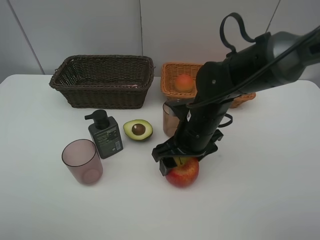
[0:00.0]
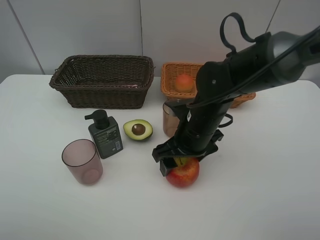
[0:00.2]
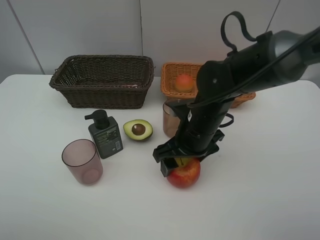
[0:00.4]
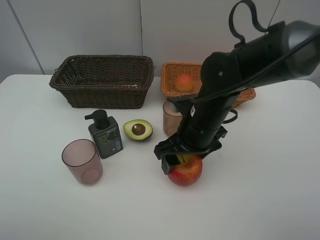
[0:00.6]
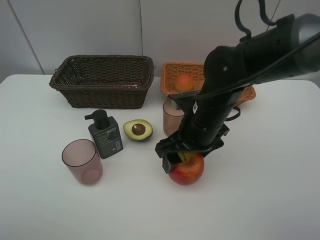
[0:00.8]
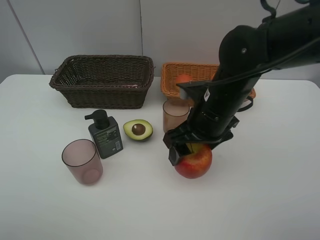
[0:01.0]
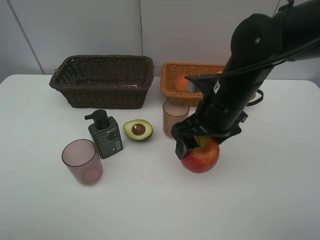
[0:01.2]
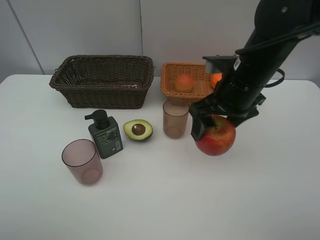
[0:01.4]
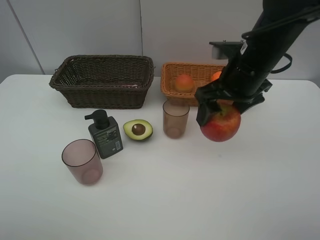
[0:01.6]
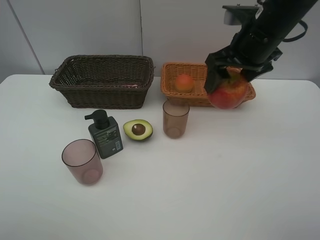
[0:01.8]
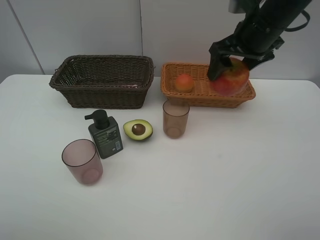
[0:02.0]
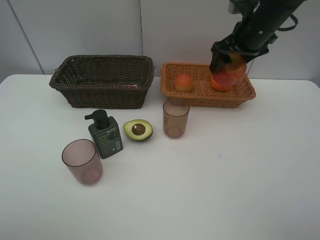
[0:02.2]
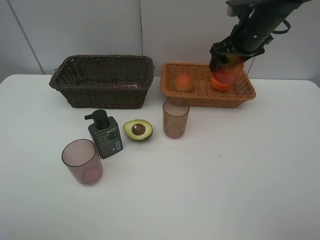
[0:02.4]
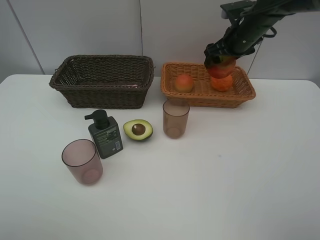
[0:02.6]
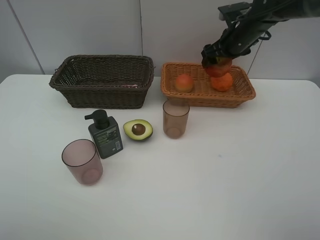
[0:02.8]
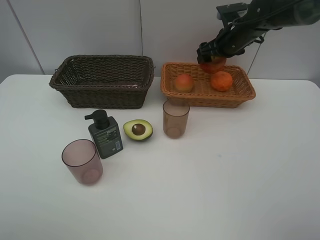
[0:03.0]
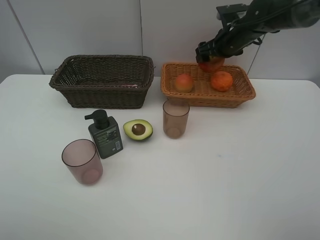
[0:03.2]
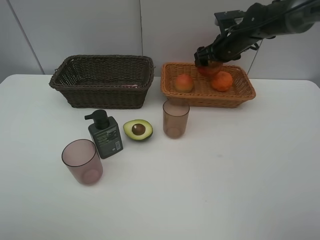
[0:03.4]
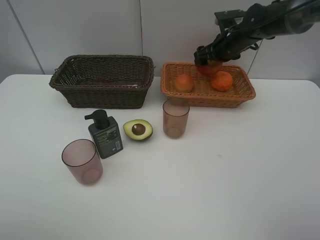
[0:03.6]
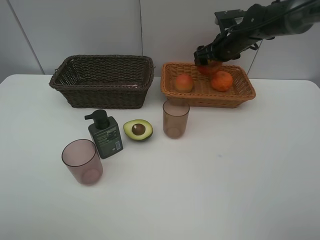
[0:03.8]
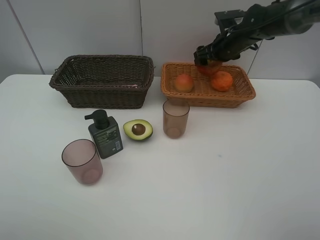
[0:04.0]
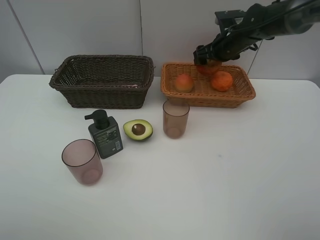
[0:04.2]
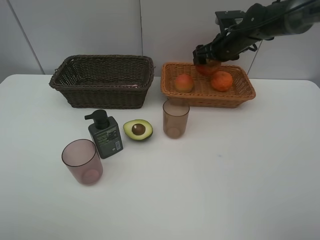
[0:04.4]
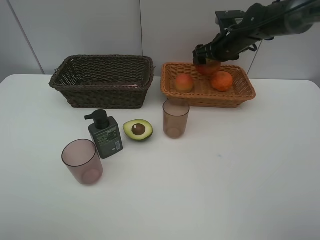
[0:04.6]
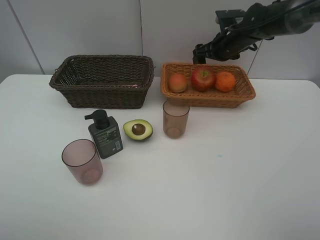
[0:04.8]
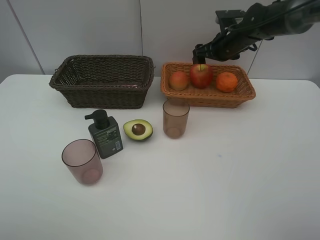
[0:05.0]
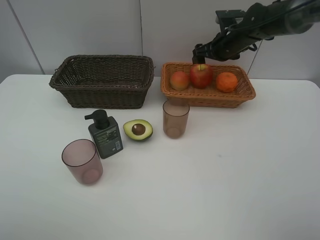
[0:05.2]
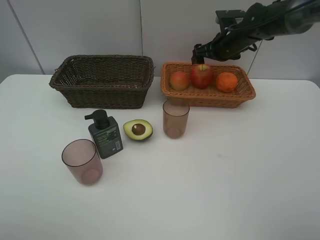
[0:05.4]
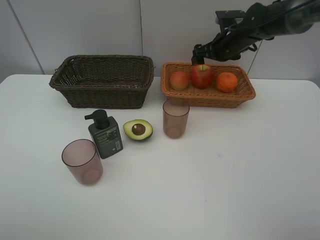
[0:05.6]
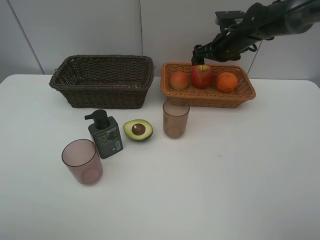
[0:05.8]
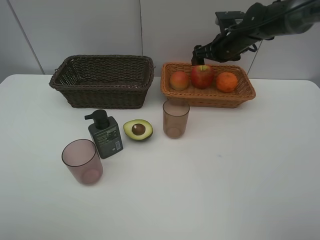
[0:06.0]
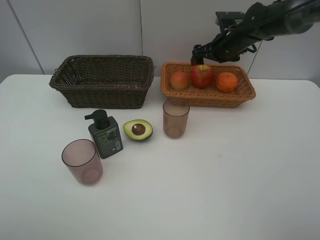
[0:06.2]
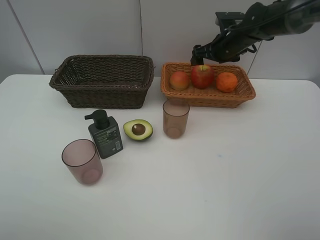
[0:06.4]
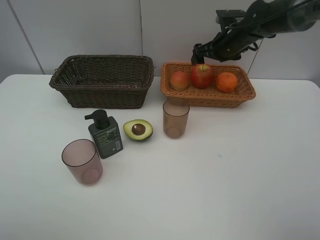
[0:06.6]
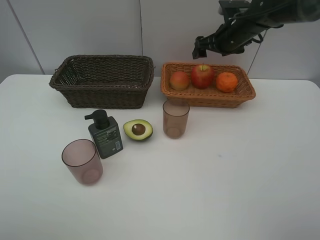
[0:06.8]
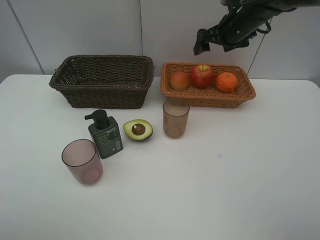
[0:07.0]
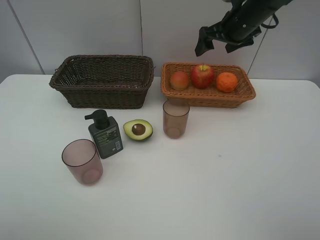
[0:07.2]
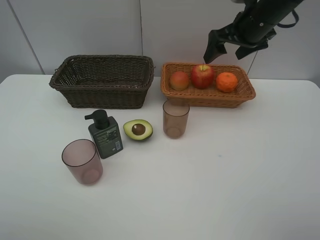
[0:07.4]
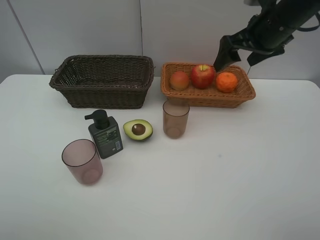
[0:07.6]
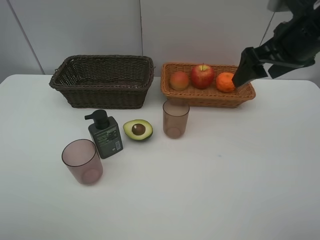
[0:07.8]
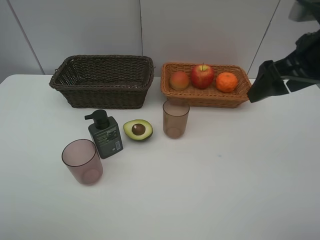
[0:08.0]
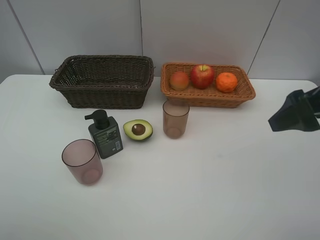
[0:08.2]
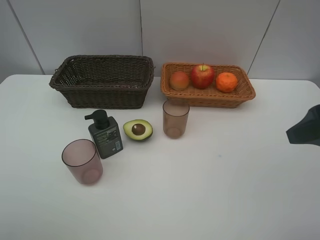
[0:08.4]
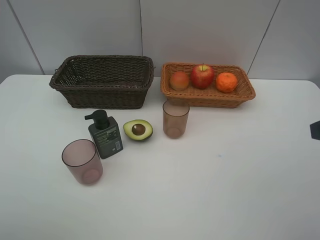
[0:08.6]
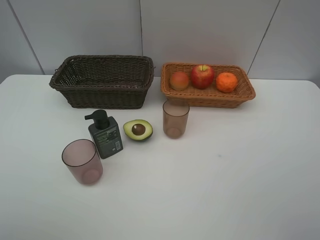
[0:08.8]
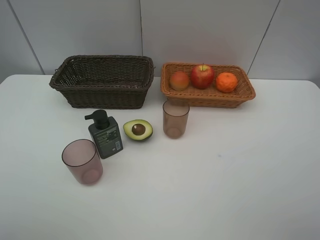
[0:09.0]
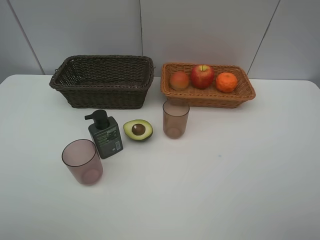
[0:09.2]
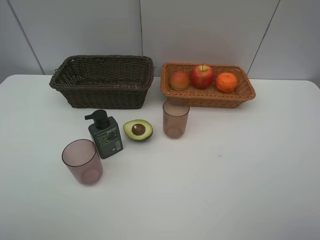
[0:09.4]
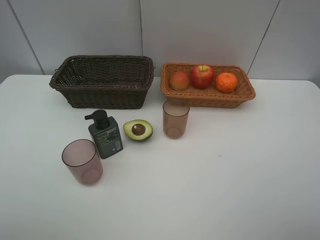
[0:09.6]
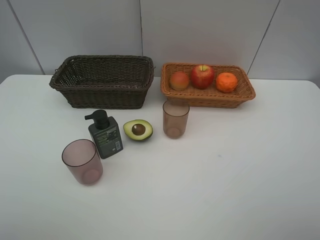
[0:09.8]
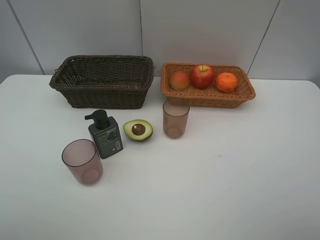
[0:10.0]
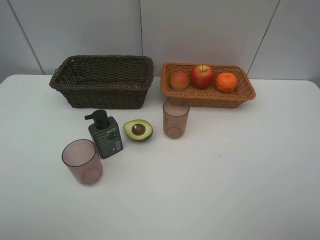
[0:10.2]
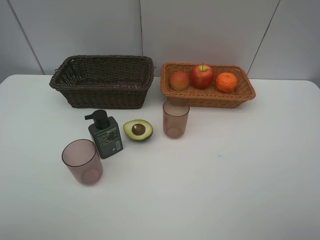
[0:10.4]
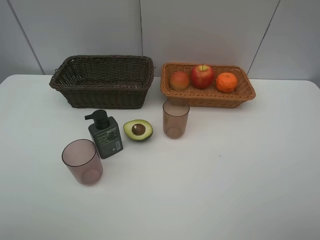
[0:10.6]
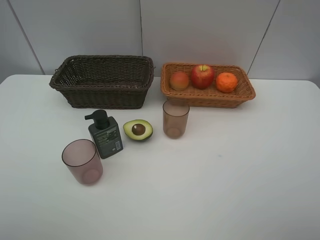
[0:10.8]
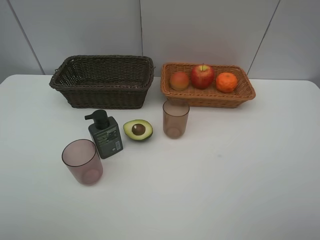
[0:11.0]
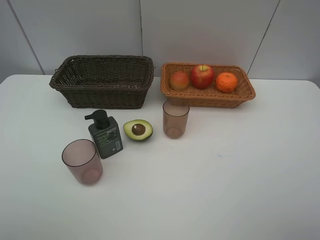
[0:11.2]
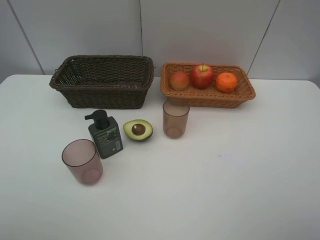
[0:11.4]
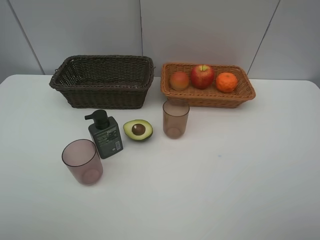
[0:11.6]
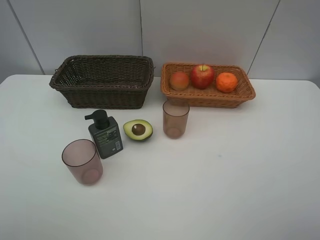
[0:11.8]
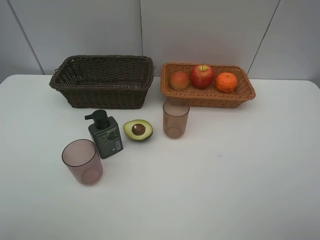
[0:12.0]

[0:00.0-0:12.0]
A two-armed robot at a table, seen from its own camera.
Task of the whole recording: Place multiple objects separately in different baskets.
Step, 0:01.2 to 0:05.0: Place the apple in the light basket with right gripper.
0:00.0 to 0:01.6: The right gripper travels upward and to the right by roughly 15 cm.
0:01.6 to 0:03.0: The right gripper heads forward, covering roughly 20 cm.
0:03.0 to 0:04.4: There are only small adjustments of the grippers.
0:04.4 to 0:06.0: Both grippers stay about where they are.
0:06.0 to 0:07.6: The right gripper travels backward and upward by some 20 cm.
0:07.6 to 0:09.0: The right gripper heads backward, covering roughly 30 cm.
0:10.4 to 0:12.0: Both grippers stay about where they are.

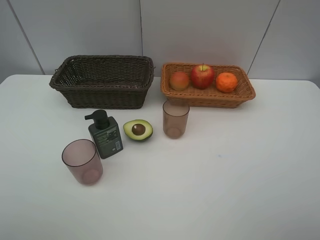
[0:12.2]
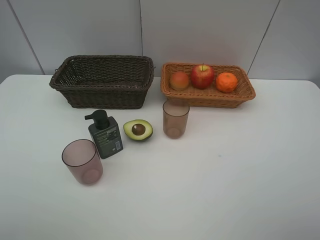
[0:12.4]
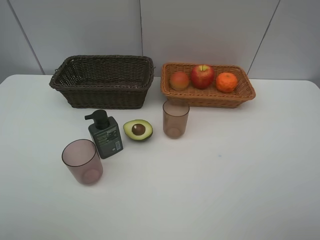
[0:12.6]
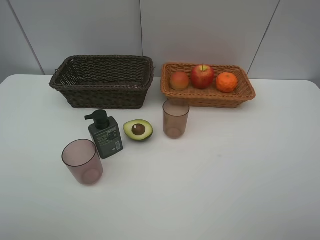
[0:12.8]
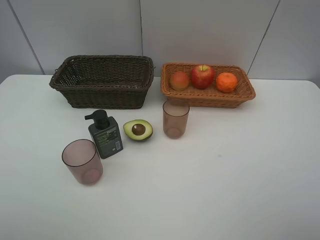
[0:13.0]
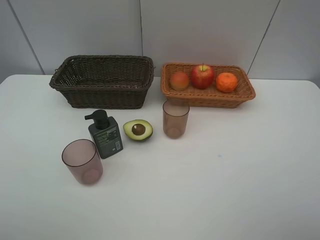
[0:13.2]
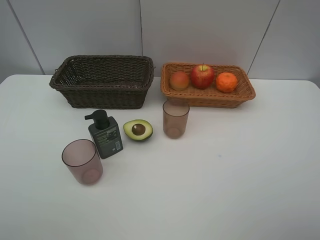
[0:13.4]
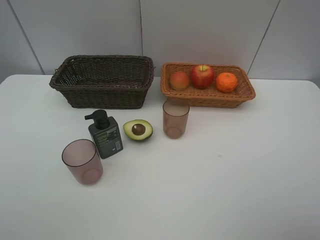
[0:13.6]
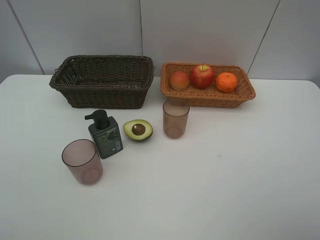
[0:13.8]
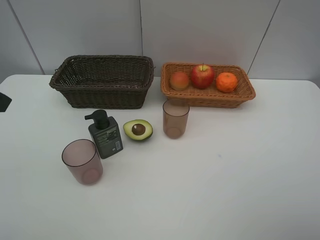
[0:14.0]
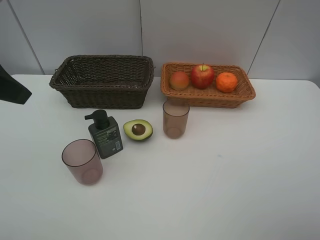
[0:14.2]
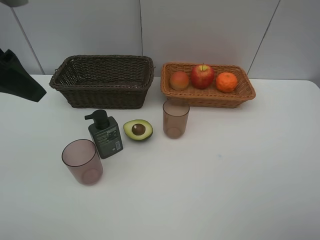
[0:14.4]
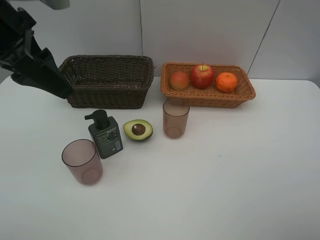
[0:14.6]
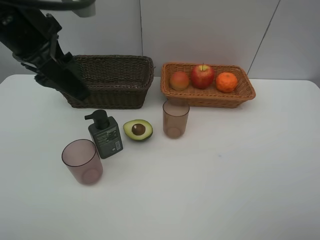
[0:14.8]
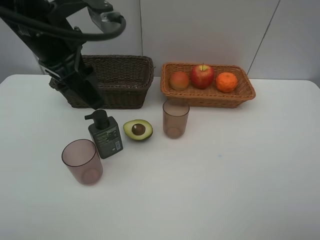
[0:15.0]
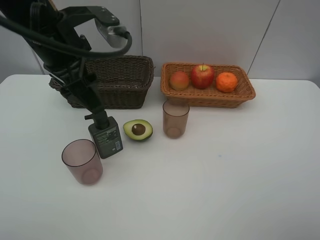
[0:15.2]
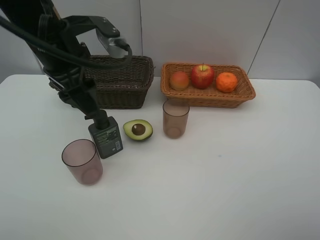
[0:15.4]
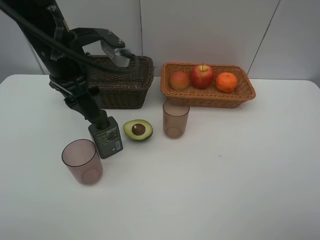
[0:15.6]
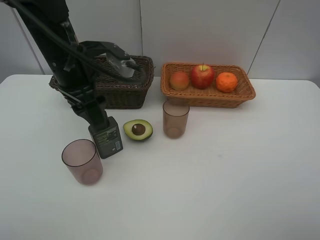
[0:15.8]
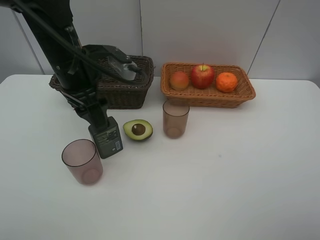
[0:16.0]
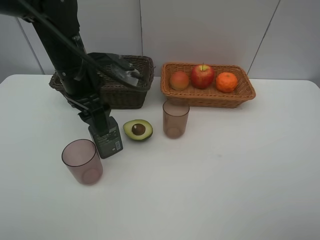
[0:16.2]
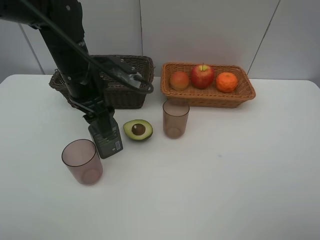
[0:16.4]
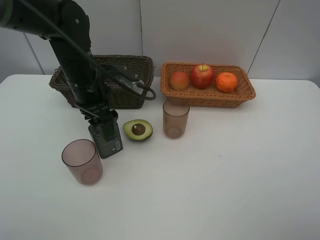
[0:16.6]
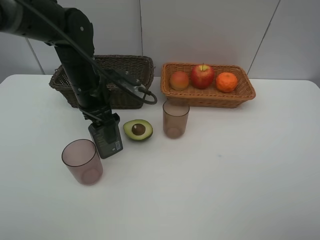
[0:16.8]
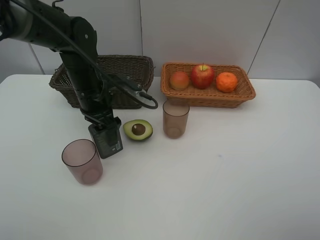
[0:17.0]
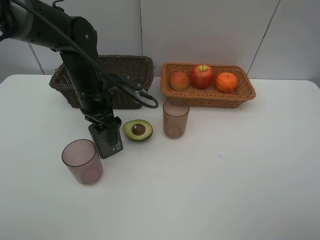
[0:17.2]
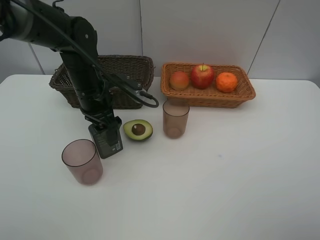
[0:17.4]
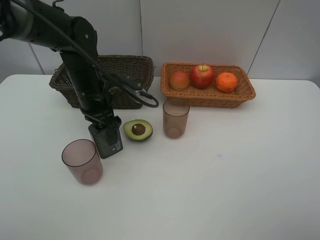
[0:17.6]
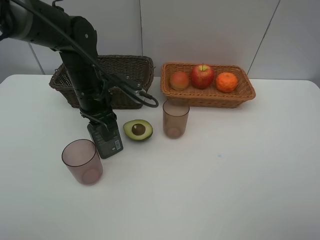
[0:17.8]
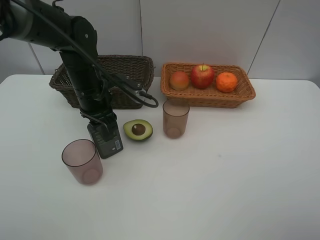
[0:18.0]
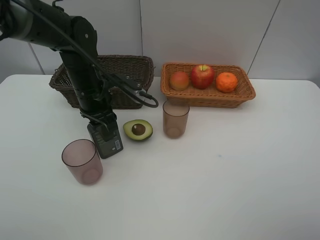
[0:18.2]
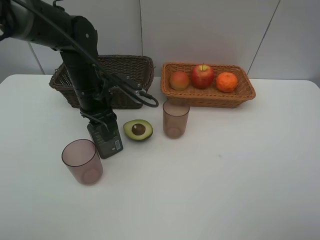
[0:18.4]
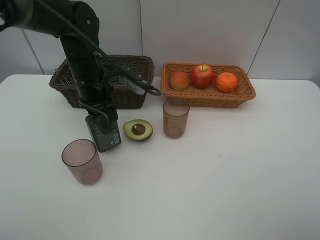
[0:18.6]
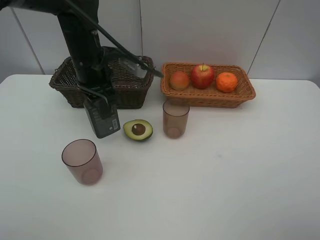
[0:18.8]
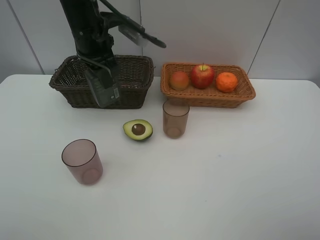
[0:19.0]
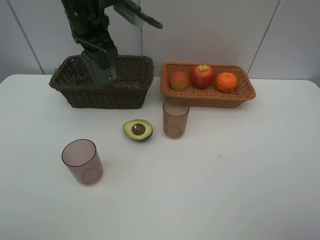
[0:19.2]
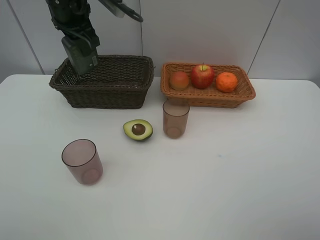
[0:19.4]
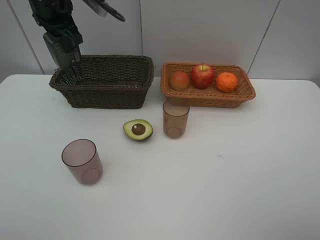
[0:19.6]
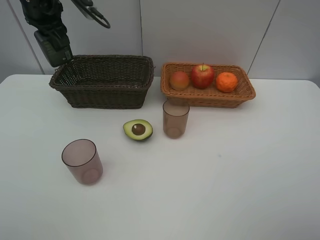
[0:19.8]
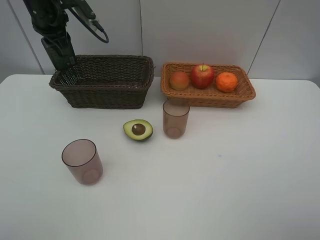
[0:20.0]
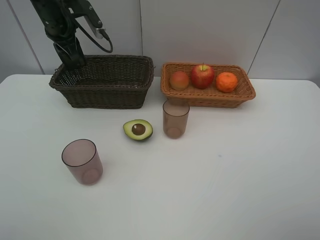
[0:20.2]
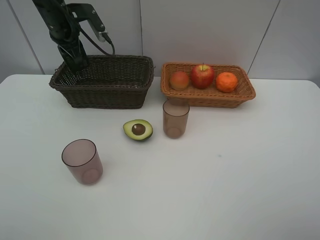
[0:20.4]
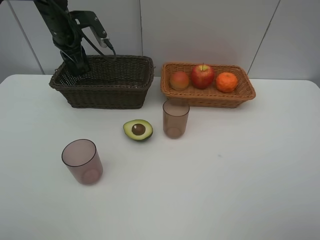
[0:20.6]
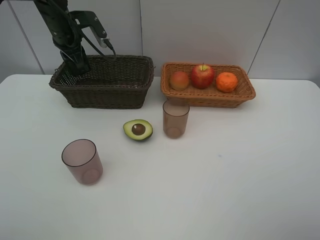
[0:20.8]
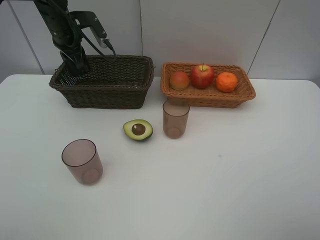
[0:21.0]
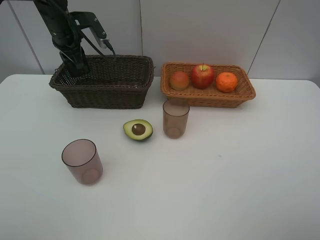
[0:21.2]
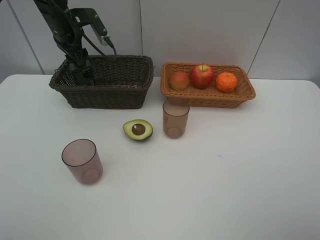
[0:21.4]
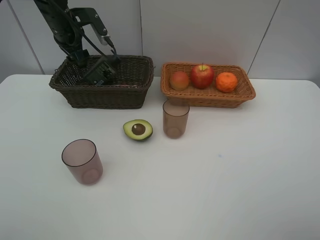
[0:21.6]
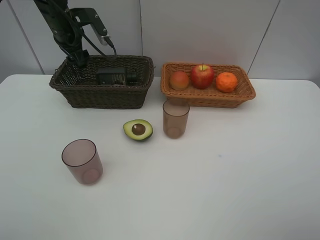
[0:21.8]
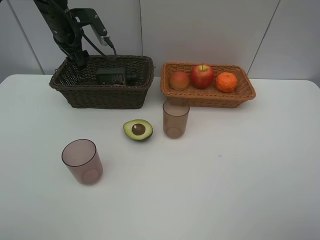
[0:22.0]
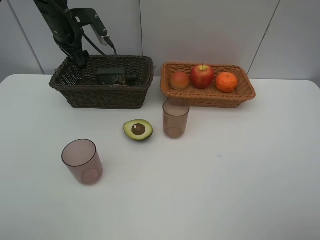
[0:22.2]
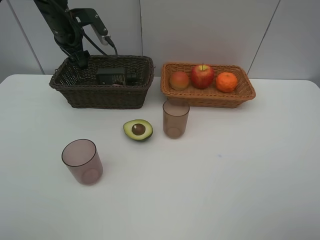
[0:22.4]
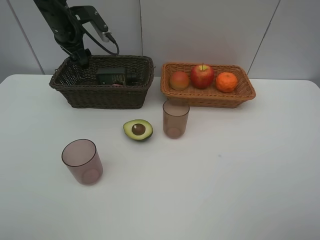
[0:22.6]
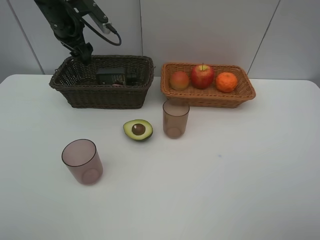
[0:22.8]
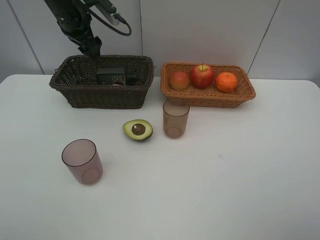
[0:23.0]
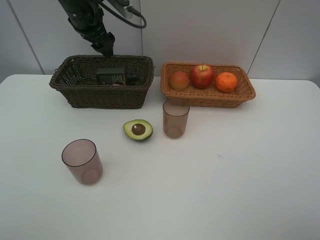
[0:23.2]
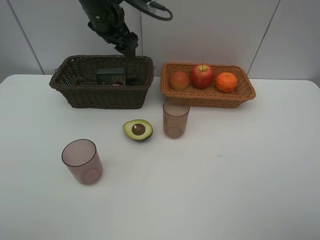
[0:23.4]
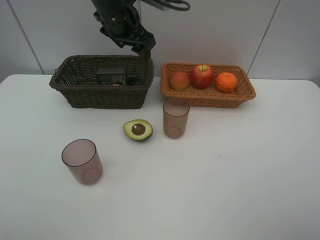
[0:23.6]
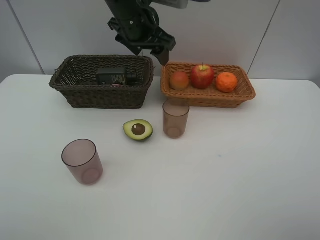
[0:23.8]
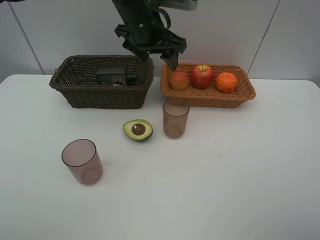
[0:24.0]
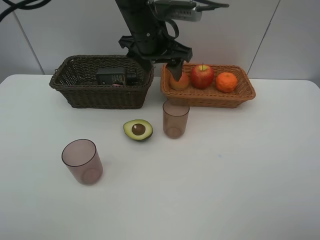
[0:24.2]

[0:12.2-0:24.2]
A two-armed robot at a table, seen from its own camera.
Task of the whole recording: Place multiple objects separately in different baskets.
Step, 0:12.2 to 0:18.8: Pick up the hard facial cleanser with left gripper.
Step, 0:19.0 to 0:22.0: Place the hard facial cleanser in the dark basket with left gripper.
0:13.8 to 0:15.2: The left gripper travels forward and to the right by approximately 20 cm.
0:15.2 to 0:16.6: The left gripper goes roughly 10 cm downward.
0:16.6 to 0:18.2: The left gripper closes up.
0:18.2 to 0:19.8: The left gripper heads upward, forward and to the left, covering roughly 20 cm.
0:19.8 to 0:21.2: The left gripper goes roughly 5 cm downward.
0:21.2 to 0:22.6: The left gripper opens its fingers.
0:22.6 to 0:24.2: The left gripper heads to the right and backward, covering roughly 25 cm.
